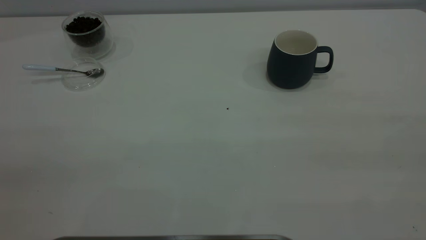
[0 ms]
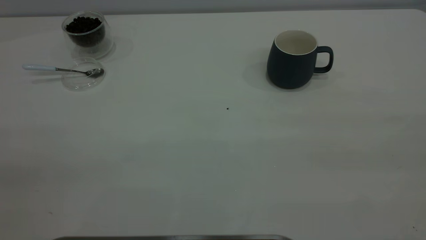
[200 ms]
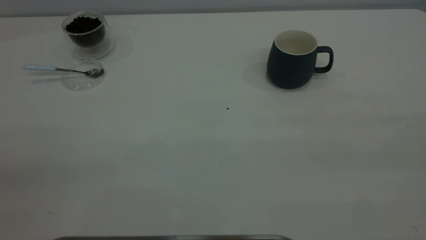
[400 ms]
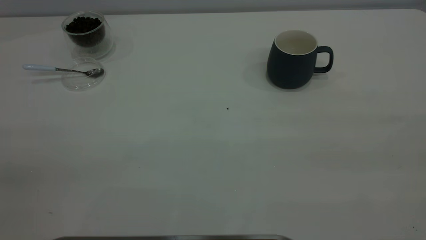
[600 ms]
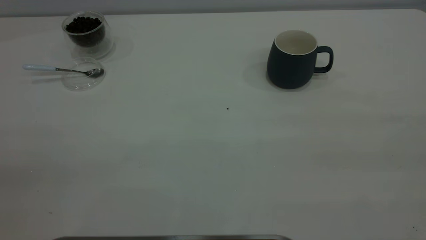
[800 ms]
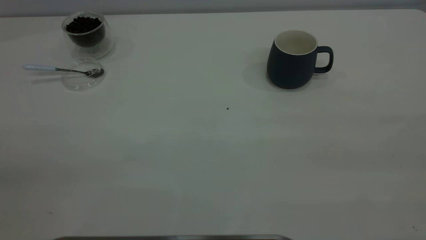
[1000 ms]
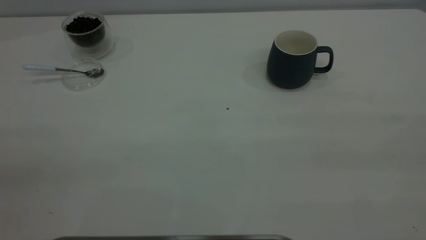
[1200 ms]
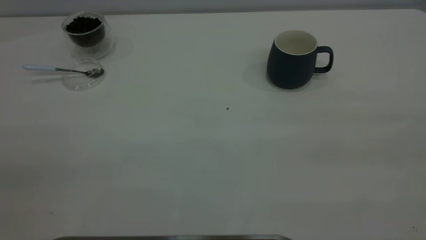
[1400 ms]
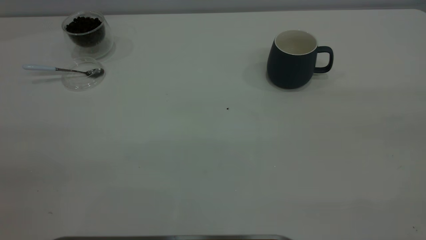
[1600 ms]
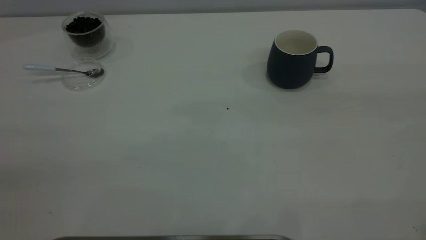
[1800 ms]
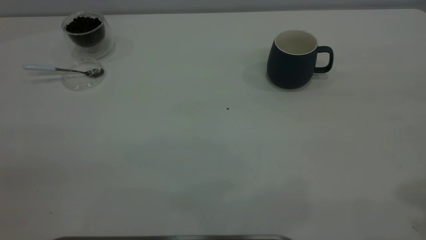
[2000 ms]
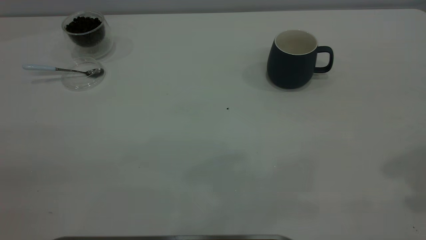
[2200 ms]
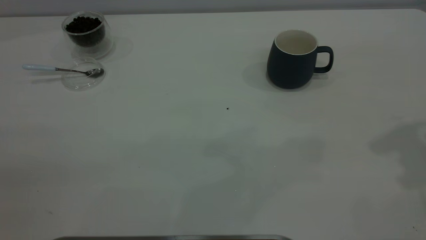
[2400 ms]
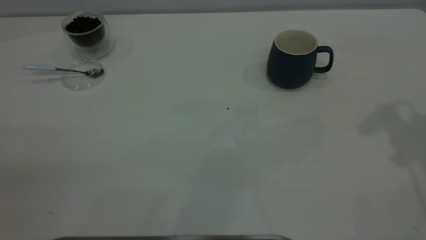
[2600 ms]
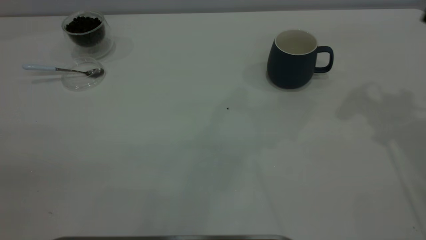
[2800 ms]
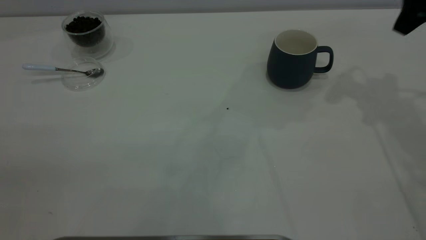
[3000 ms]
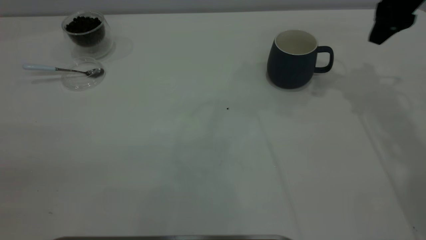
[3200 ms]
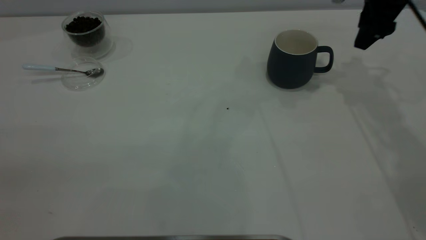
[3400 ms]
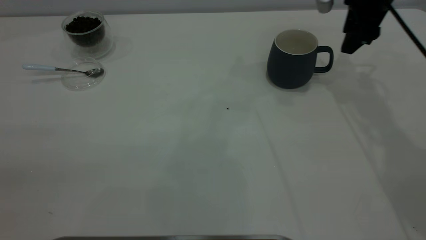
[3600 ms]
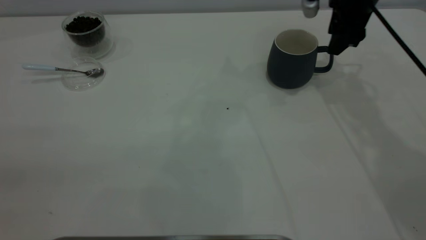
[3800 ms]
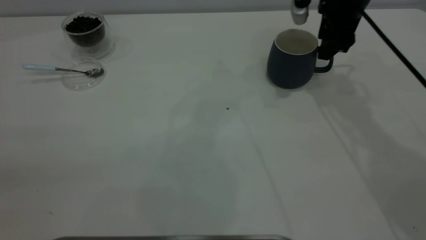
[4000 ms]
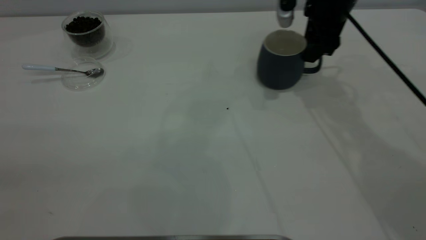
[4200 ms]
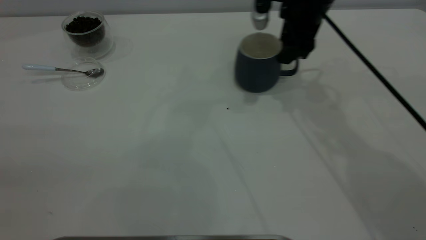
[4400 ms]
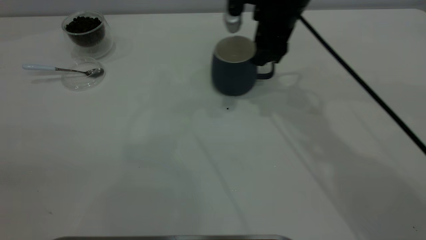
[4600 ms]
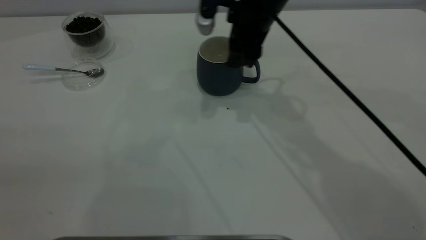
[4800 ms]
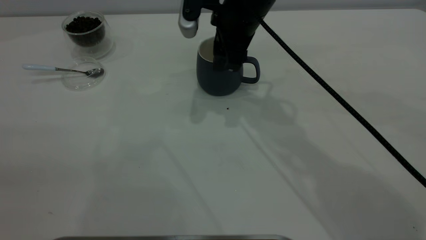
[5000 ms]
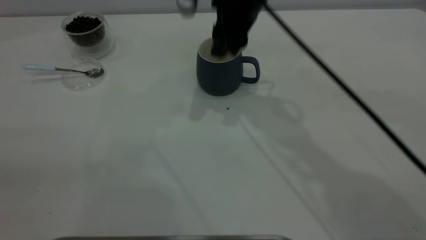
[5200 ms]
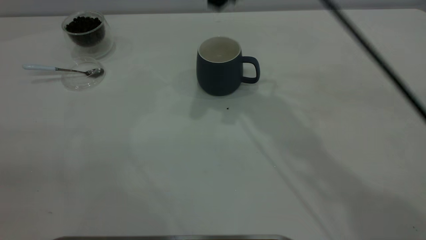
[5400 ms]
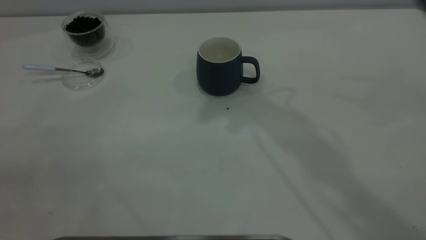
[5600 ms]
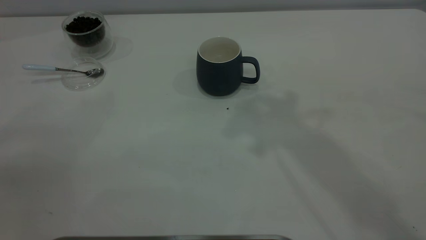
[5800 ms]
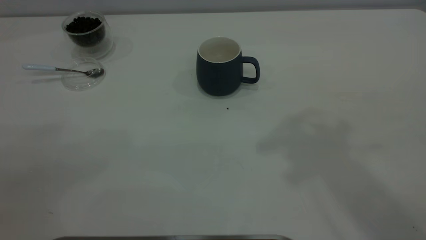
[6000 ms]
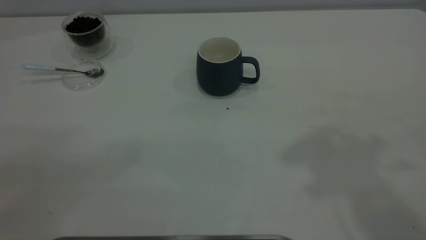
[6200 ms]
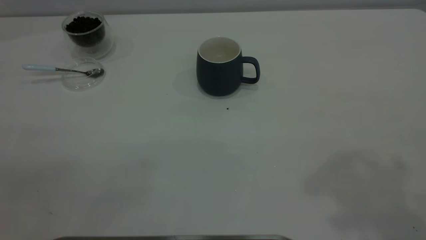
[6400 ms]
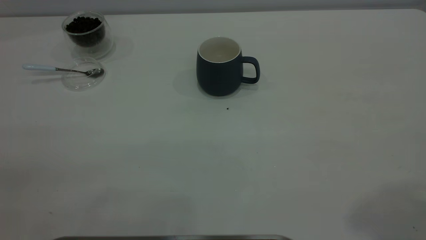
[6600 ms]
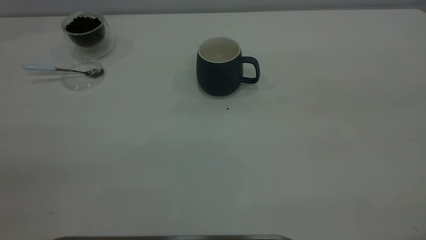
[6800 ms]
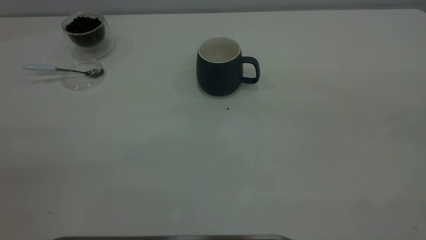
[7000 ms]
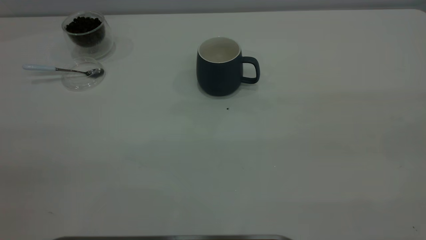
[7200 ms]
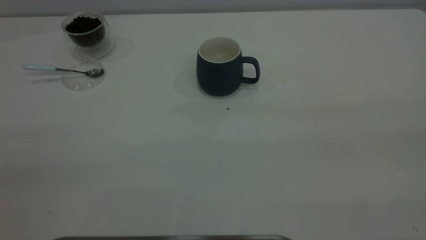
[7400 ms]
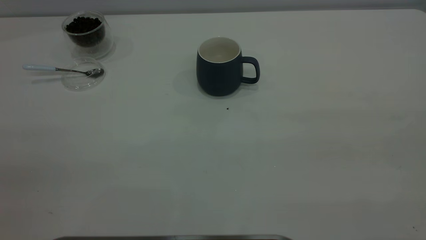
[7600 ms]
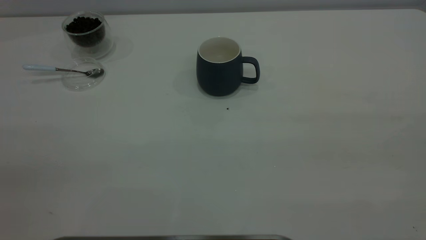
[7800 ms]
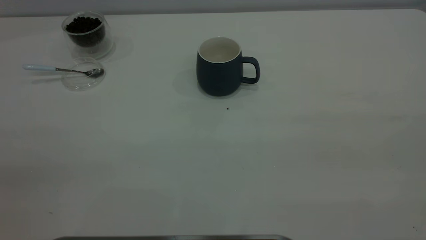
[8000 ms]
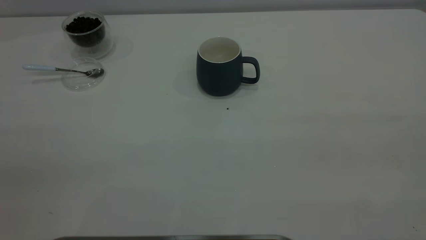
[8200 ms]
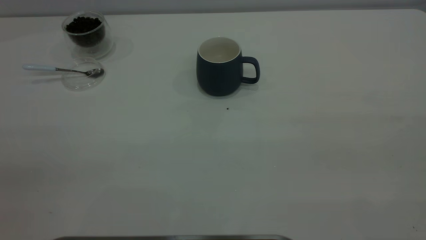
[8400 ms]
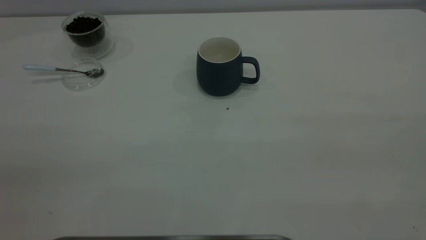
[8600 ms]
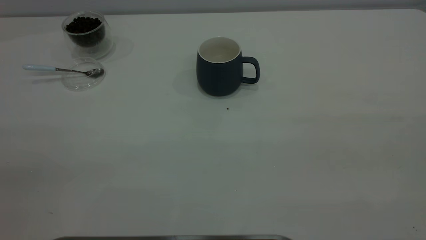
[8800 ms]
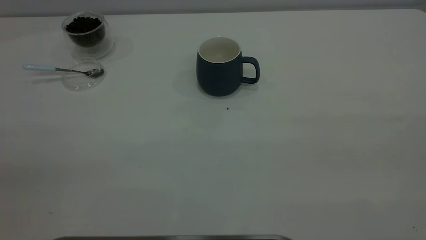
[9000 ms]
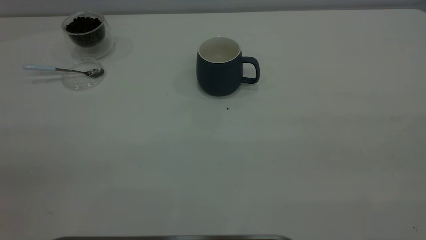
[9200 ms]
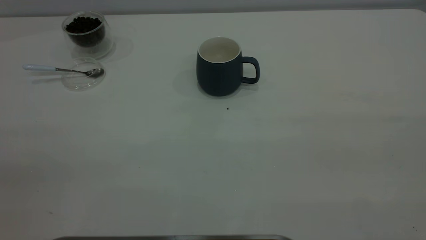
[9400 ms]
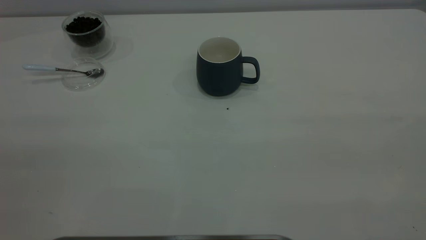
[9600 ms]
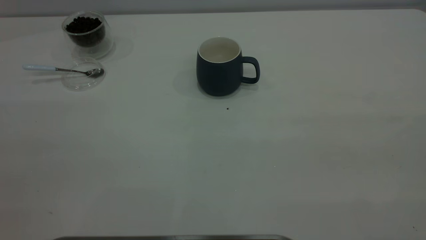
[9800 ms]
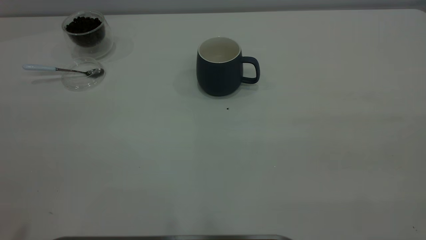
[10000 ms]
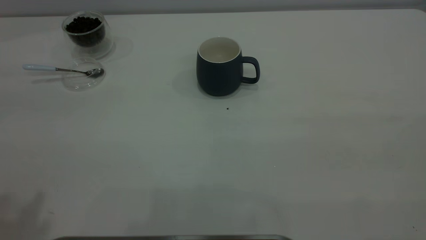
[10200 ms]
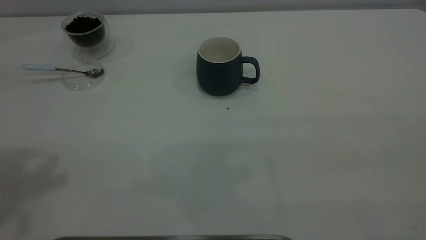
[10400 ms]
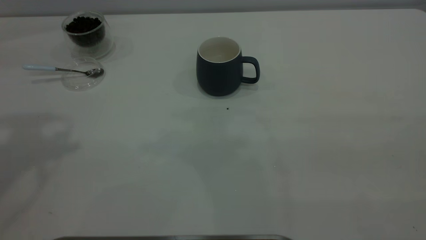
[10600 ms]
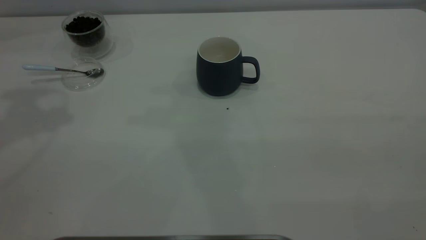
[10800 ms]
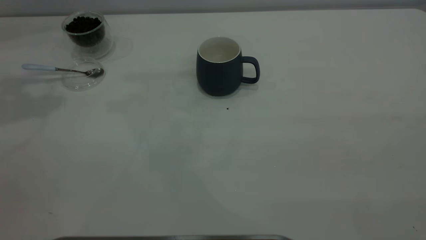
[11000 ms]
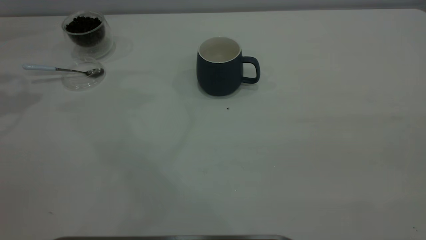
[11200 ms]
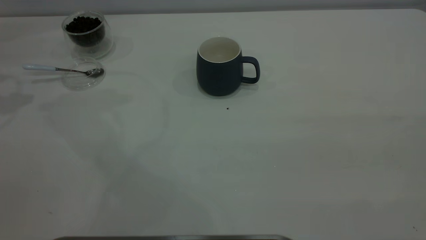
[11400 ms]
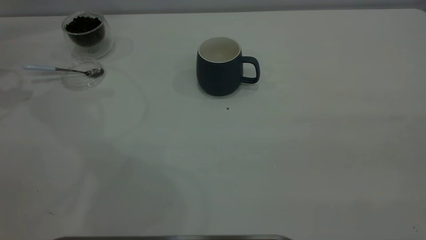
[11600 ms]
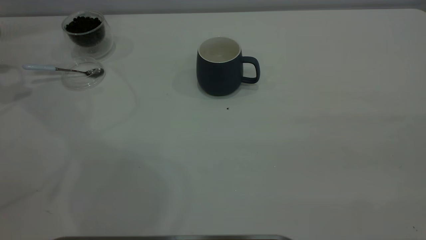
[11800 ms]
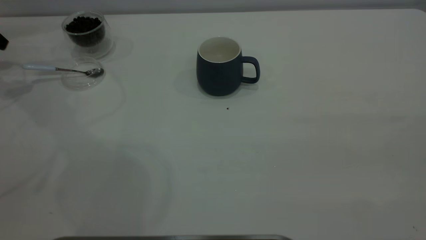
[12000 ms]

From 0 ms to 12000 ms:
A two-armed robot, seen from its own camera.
Task of the whole recording: the right gripper place the grey cup in the center of the table, the left gripper take the blue spoon from the cup lid and scoop out the coffee beans from the coffee cup and put them into the grey cup, the left gripper put the spoon back into the cup lid.
Step, from 0 ms to 5200 ms: Move the cup to the center of view.
From 1600 ms to 3000 ms: The right gripper heads forward and downward, covering some 40 cm.
From 3000 ms to 4400 ms: The right gripper travels to the left and downward by approximately 15 cm.
From 4400 ms to 6000 ms: The right gripper shifts roughly 40 cm upward and backward.

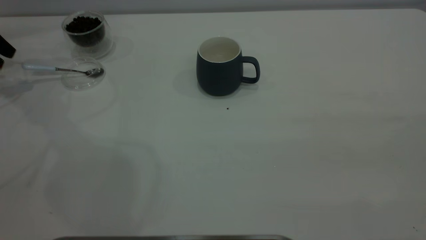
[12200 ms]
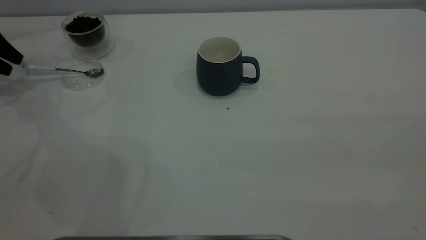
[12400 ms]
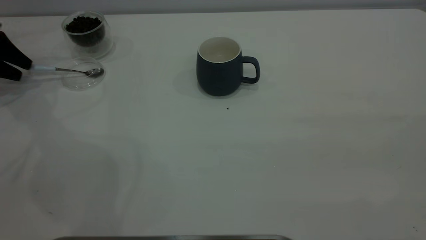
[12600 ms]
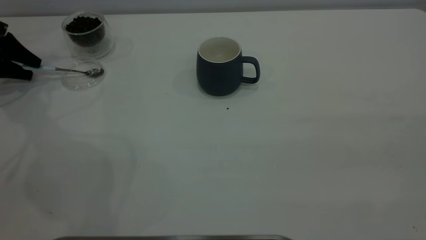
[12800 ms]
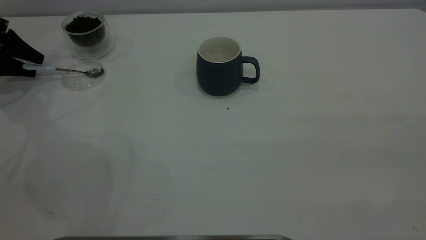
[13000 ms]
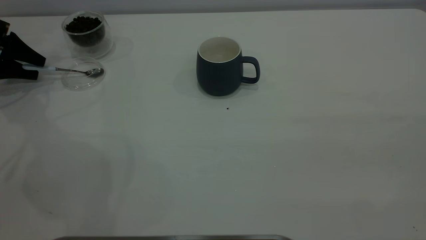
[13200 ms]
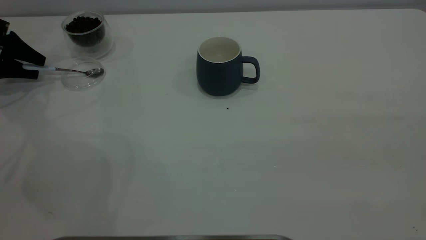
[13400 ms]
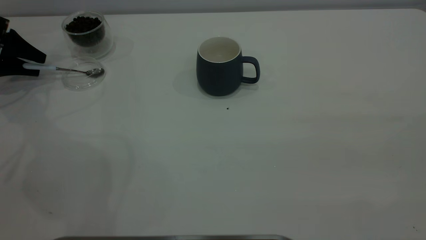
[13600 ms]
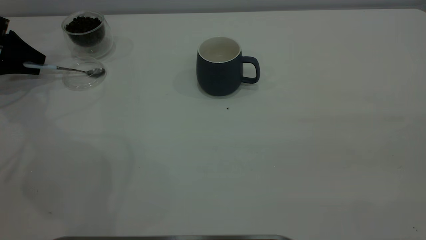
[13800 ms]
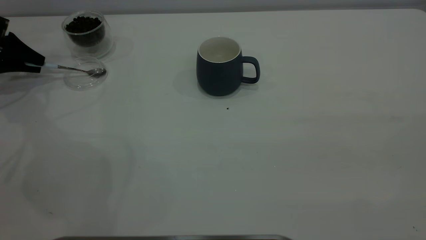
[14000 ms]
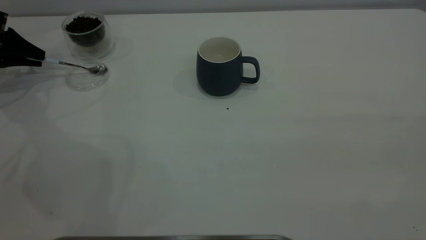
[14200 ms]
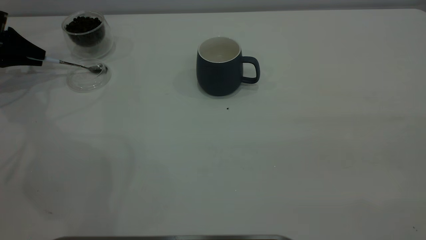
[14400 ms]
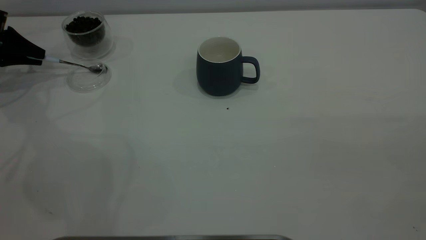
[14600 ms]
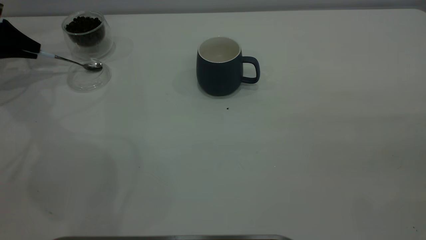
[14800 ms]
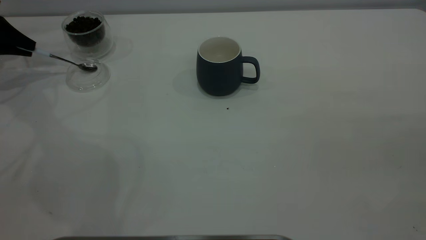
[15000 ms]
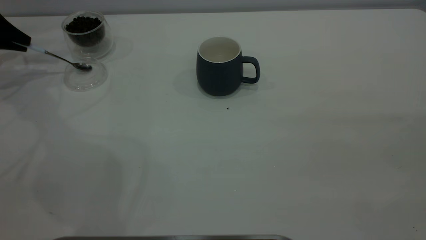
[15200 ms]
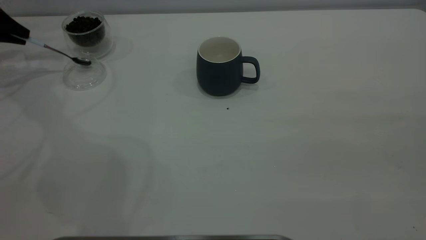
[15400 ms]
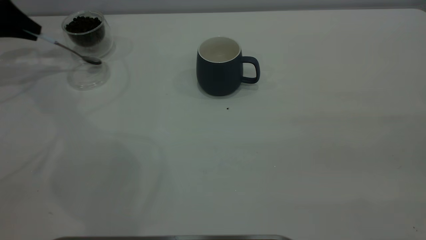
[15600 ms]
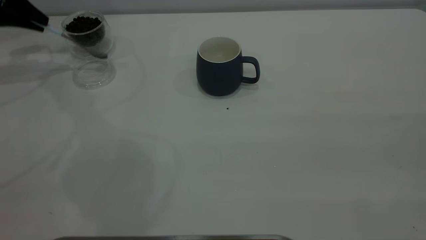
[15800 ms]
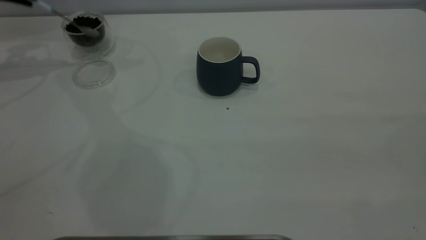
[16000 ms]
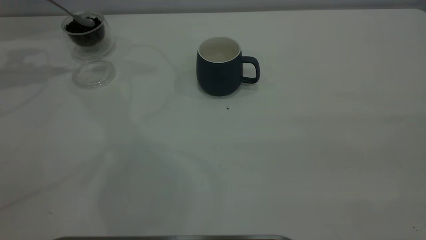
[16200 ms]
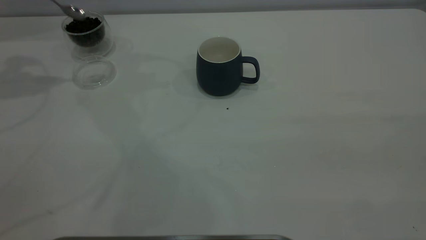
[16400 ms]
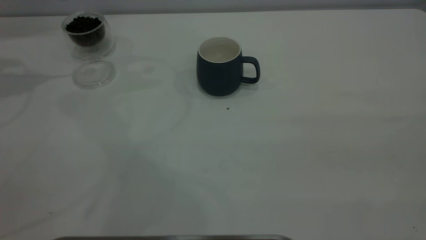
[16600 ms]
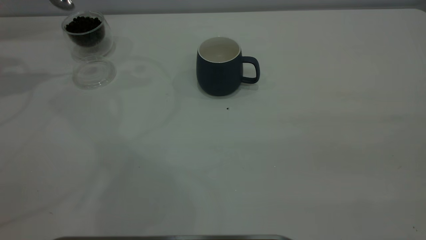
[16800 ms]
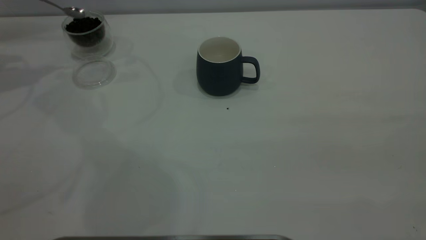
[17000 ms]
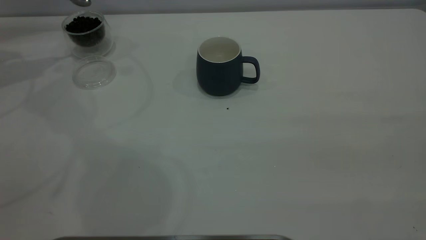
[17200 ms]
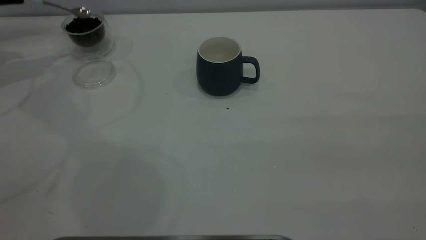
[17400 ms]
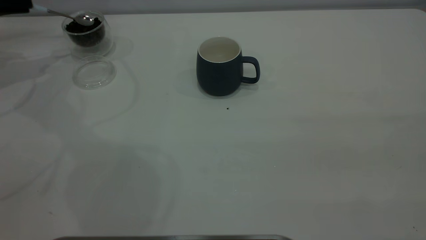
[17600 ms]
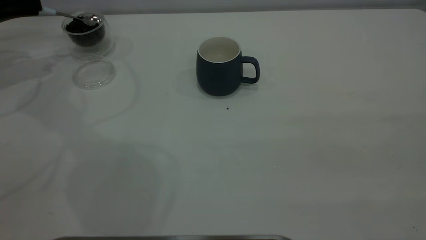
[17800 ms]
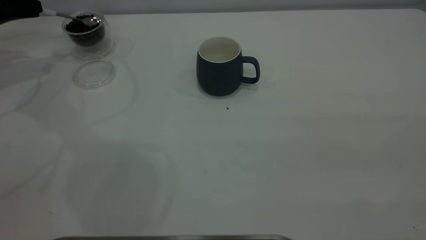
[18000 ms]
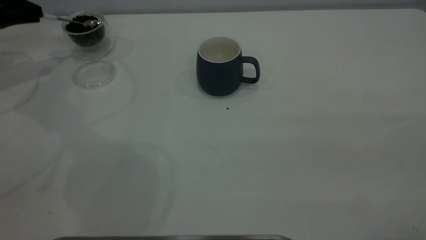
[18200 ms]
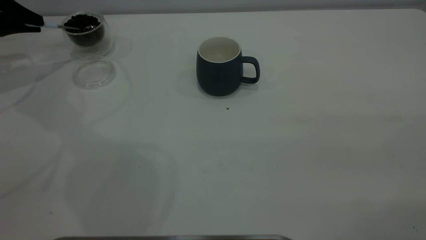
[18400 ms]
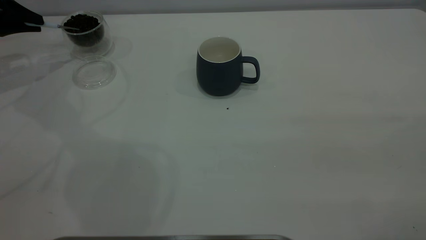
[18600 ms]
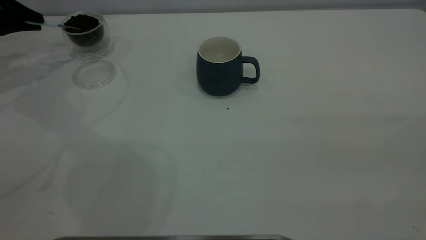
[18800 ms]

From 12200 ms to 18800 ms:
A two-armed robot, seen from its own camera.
Task of the whole recording: the right gripper place the grey cup in the center of the table, the left gripper take the blue spoon from the cup lid and scoop out the coffee beans from the coffee cup and put them into the grey cup, the left gripper put the spoon back into the cup lid.
Step, from 12200 ms to 15800 ms: Pick up the spoon.
From 12200 ms to 13800 ms: The left gripper shifts some 5 cm downward.
From 13800 ms to 15400 ms: The left gripper travels upward by roughly 5 cm, and closes its fingers.
From 15400 ms to 17200 ms: The left gripper goes approximately 5 cm upward.
From 17200 ms to 18800 ms: The left gripper goes roughly 5 cm downward.
